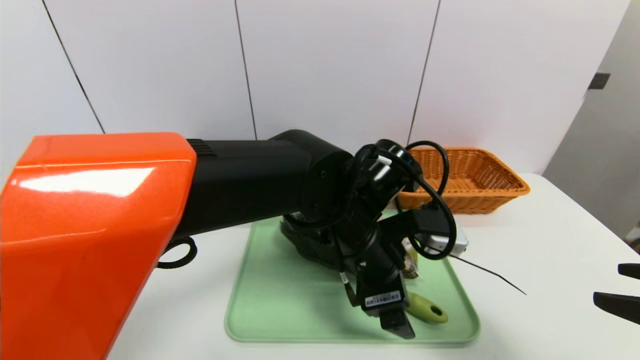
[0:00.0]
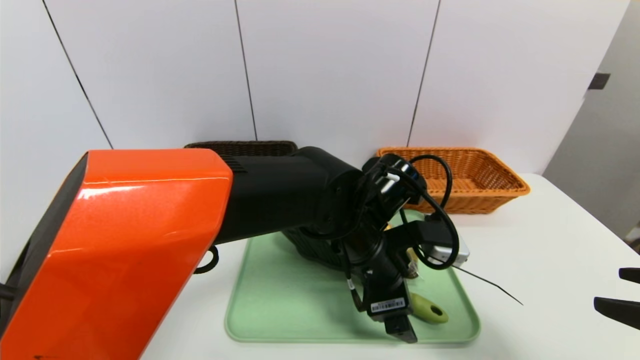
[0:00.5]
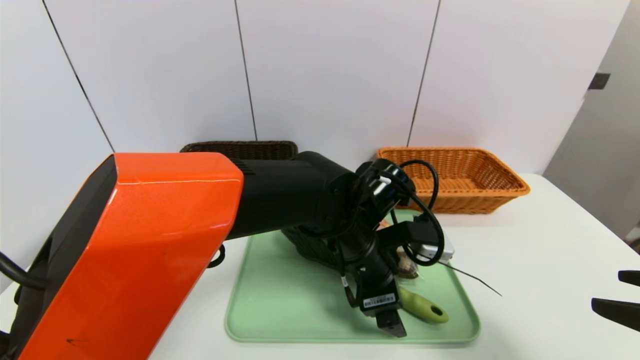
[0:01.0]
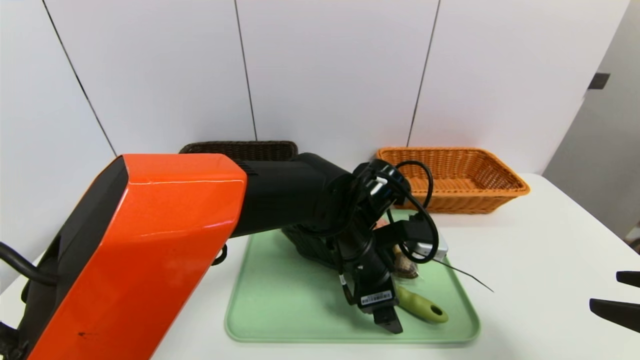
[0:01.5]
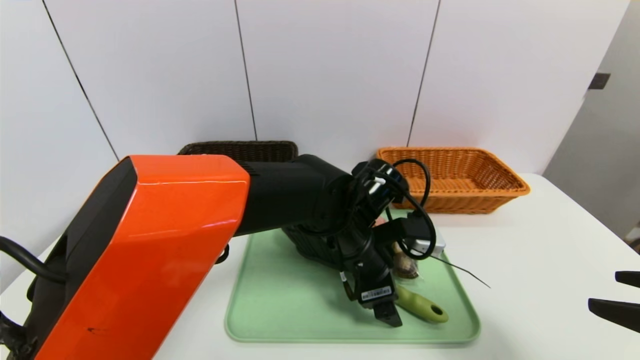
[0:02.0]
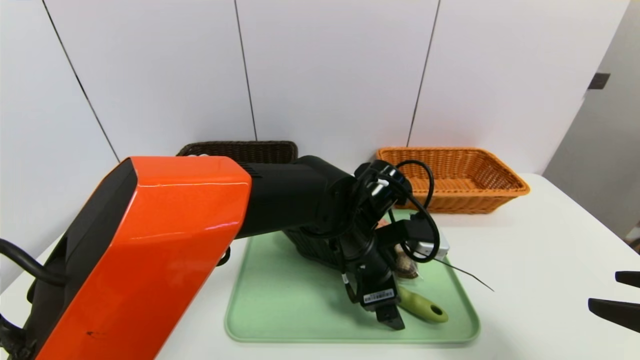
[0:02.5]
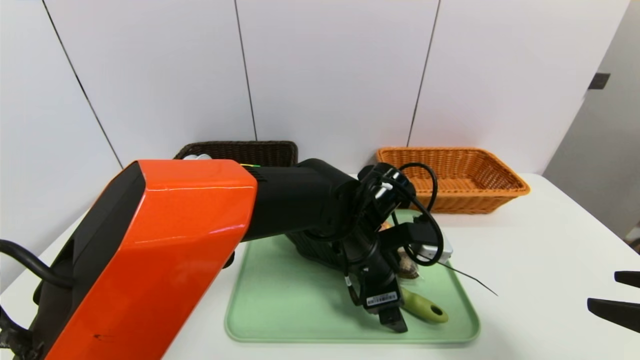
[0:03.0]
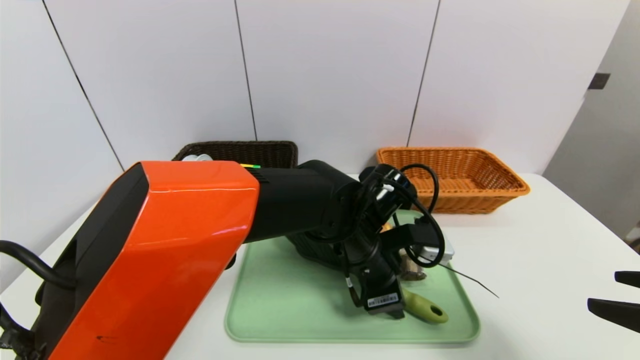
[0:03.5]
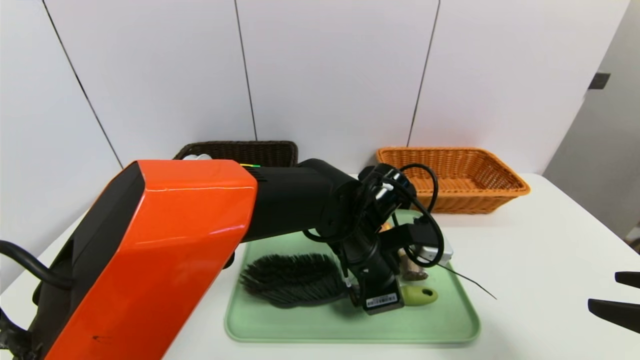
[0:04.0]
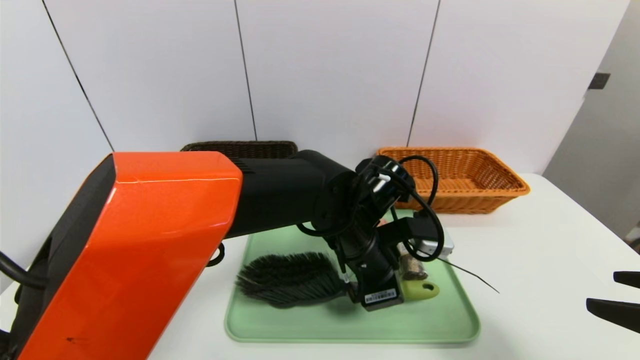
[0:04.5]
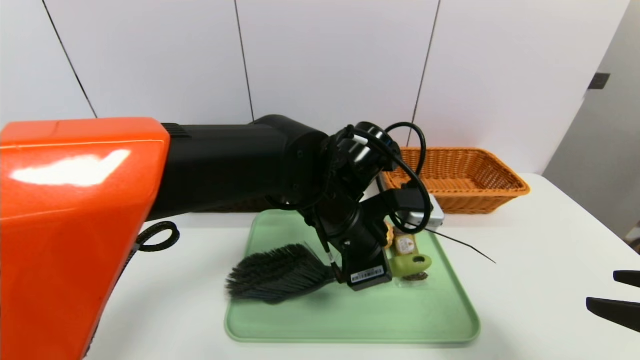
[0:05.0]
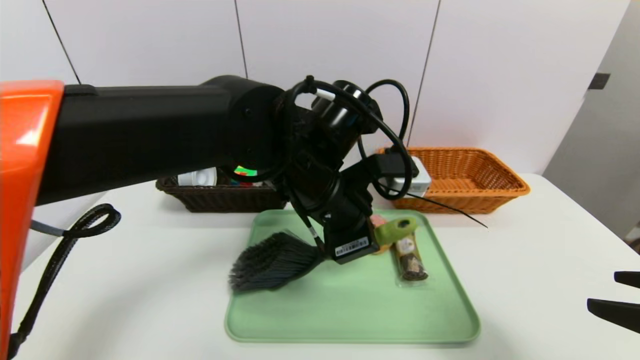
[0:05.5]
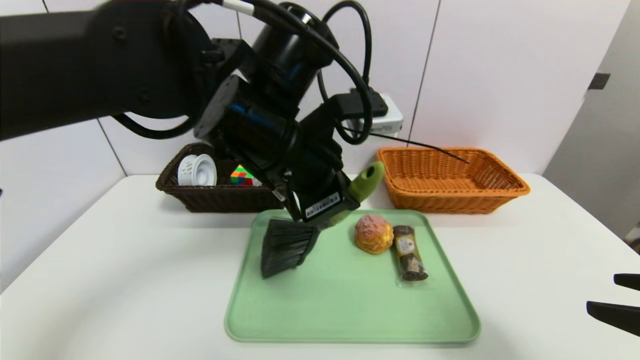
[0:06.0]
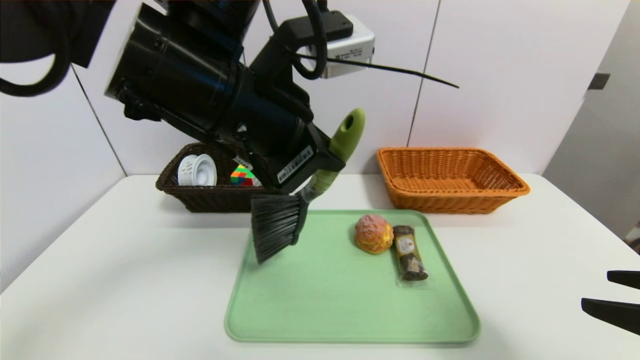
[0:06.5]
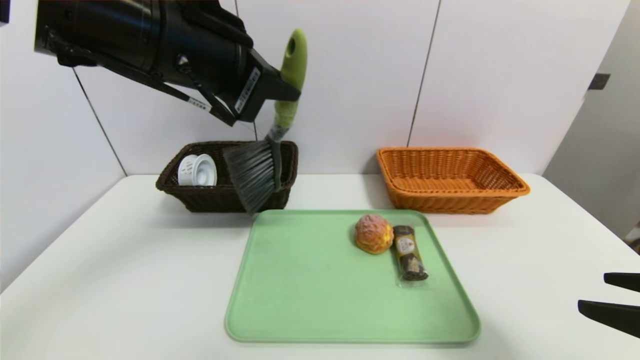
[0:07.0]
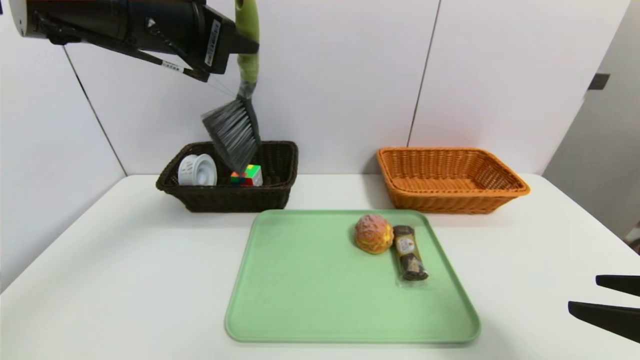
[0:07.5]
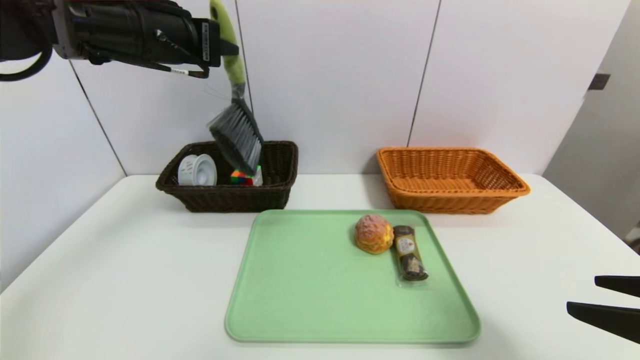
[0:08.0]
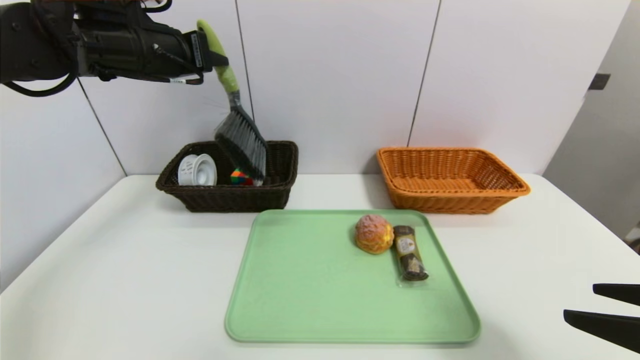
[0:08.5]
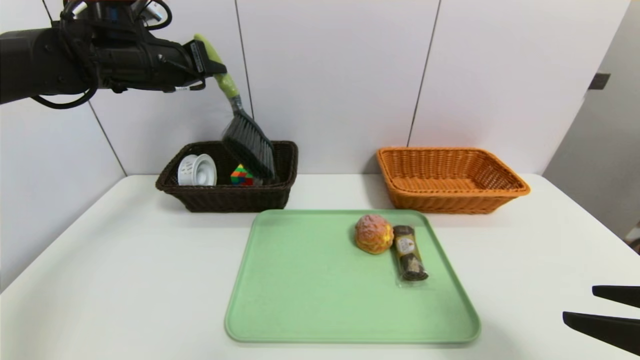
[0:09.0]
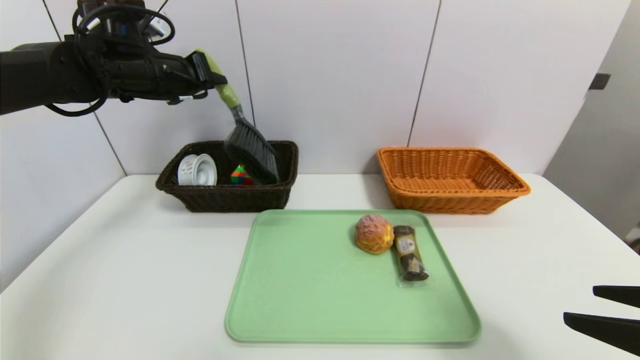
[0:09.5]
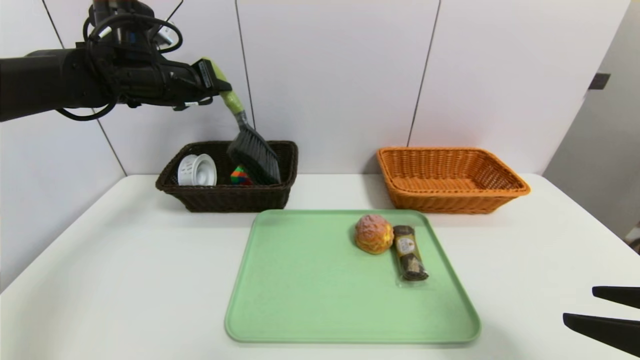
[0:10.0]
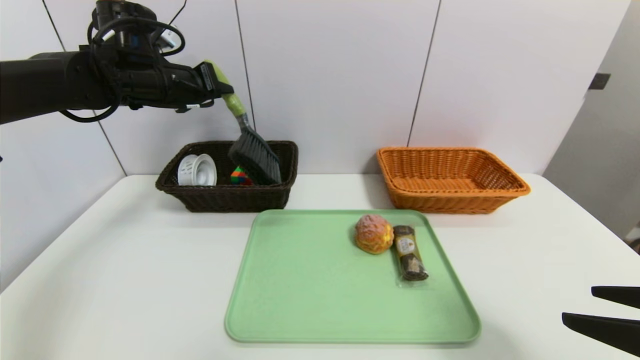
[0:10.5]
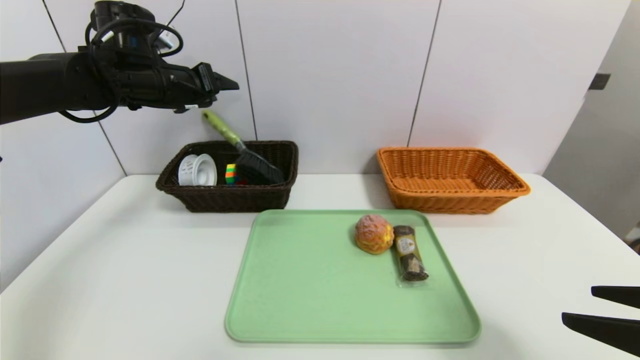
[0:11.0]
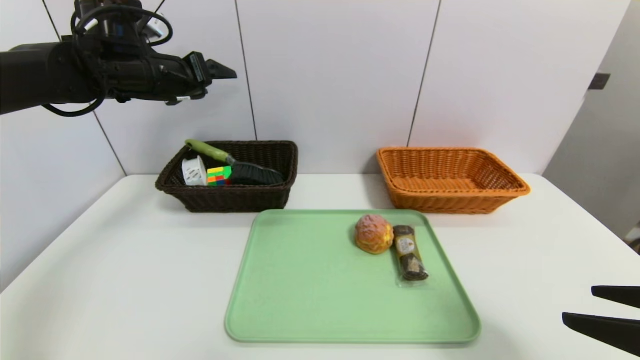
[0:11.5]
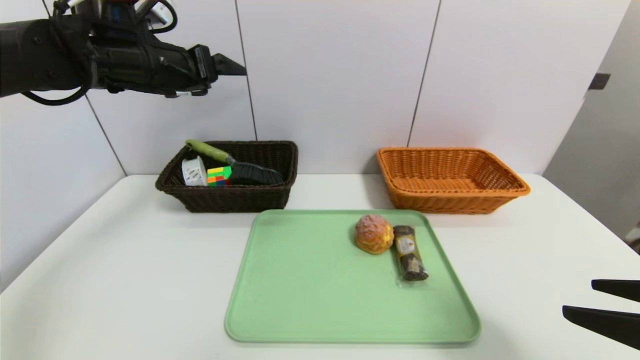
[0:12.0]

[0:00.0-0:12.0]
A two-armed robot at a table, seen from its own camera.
Task of the whole recording: place the food in the right basket with the right gripper, and place the non food items in the left basket with the left gripper.
Step, 0:00.0 to 0:11.5: Grasp the brush and put it in the left basket.
0:02.0 to 0:04.0: The left gripper closes its fingers.
0:04.0 to 0:06.0: The left gripper shifts roughly 20 cm upward and to the left.
0:06.0 to 0:08.0: The left gripper travels to the left, forward and upward by approximately 20 cm.
0:08.0 to 0:10.0: The left gripper shifts approximately 10 cm forward and downward.
0:10.0 to 0:12.0: The left gripper opens.

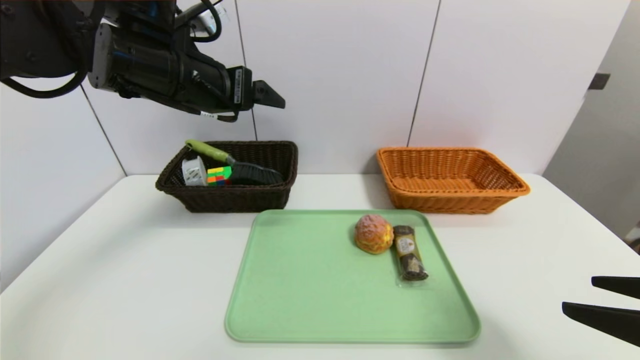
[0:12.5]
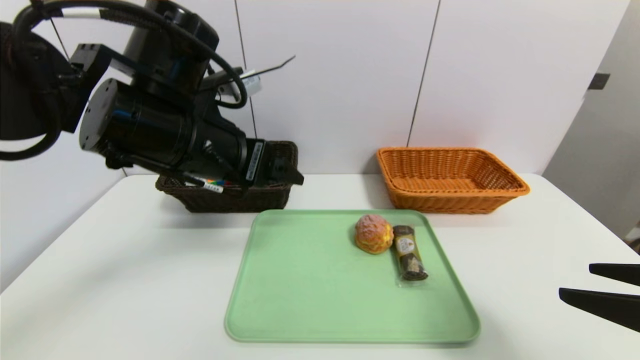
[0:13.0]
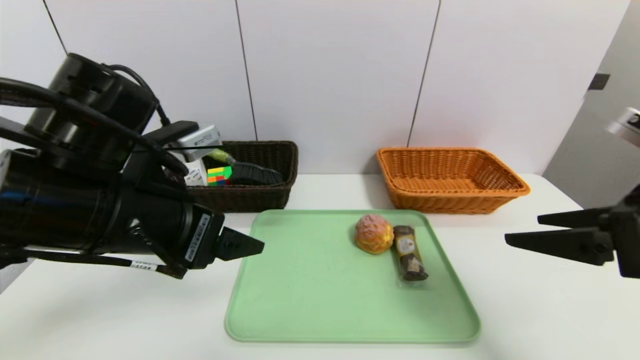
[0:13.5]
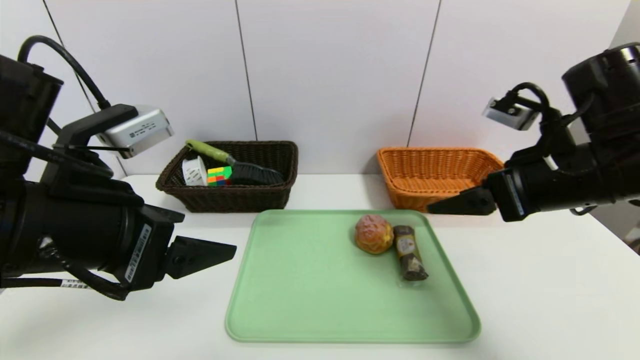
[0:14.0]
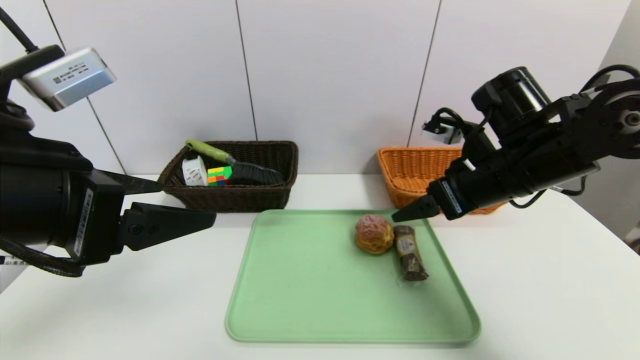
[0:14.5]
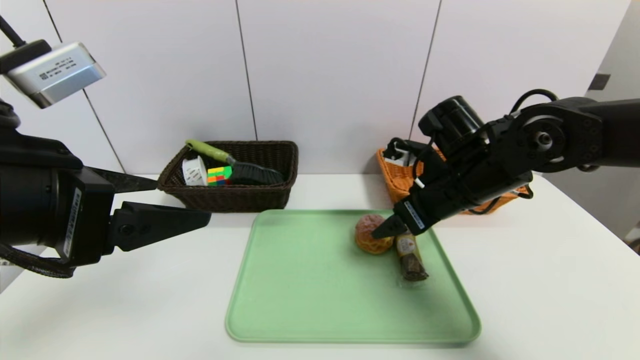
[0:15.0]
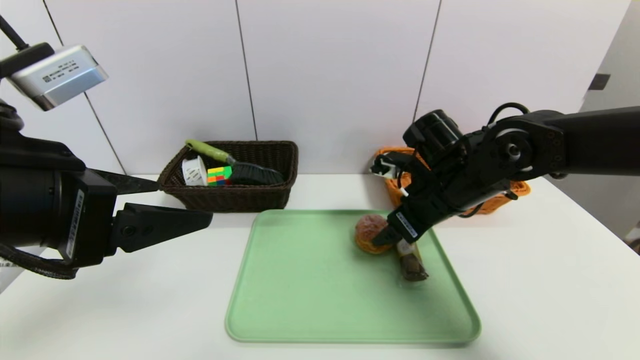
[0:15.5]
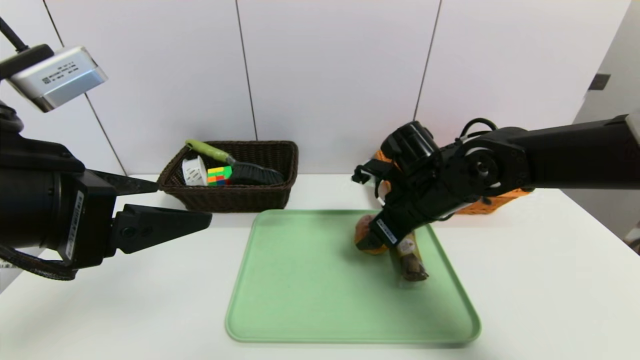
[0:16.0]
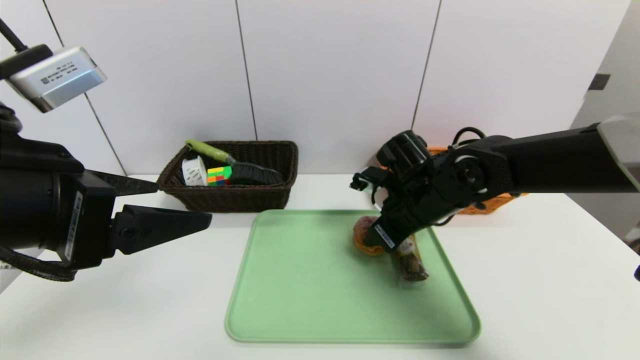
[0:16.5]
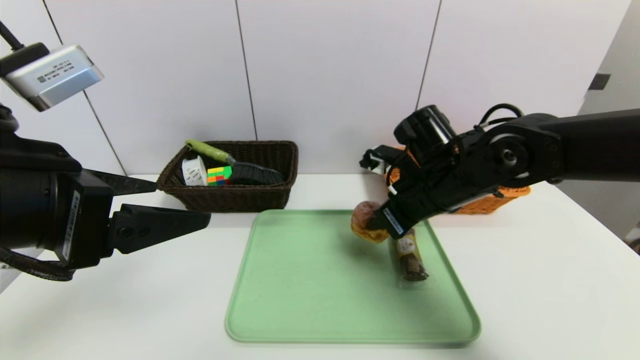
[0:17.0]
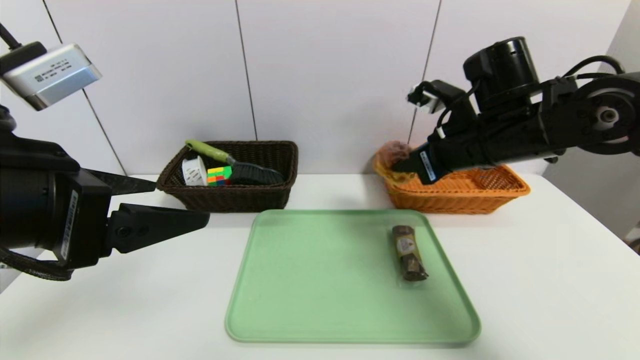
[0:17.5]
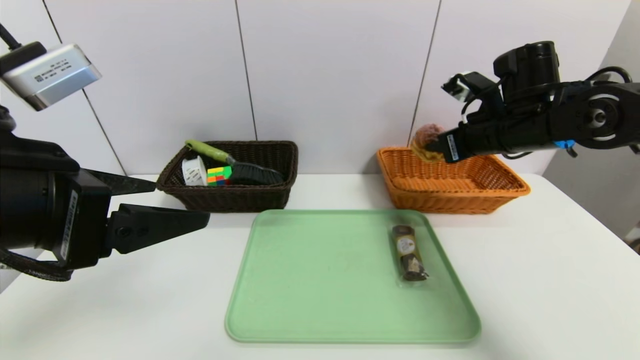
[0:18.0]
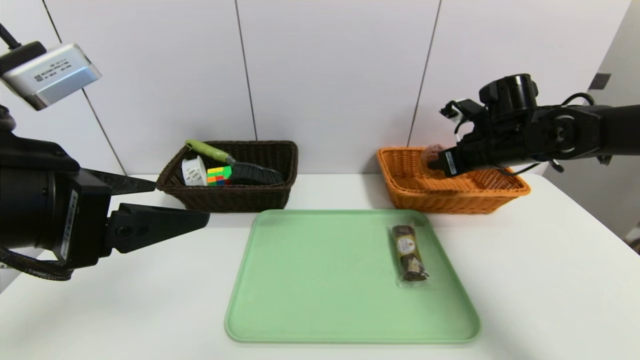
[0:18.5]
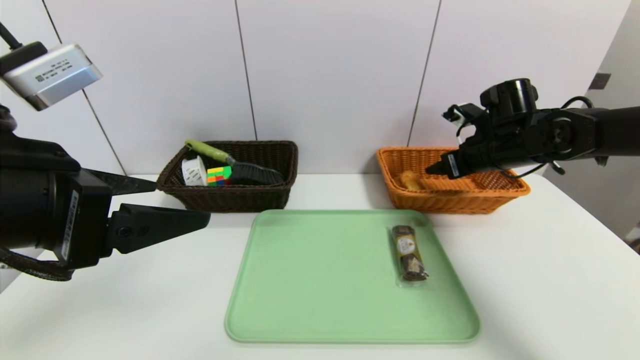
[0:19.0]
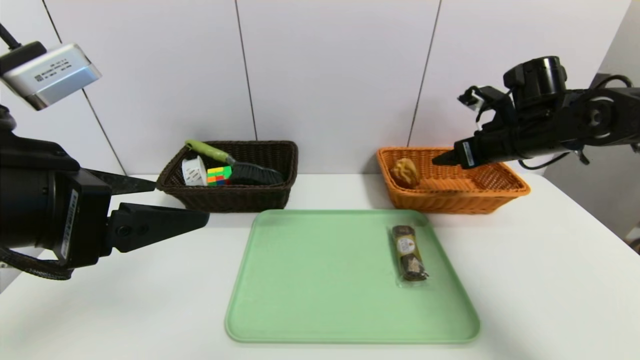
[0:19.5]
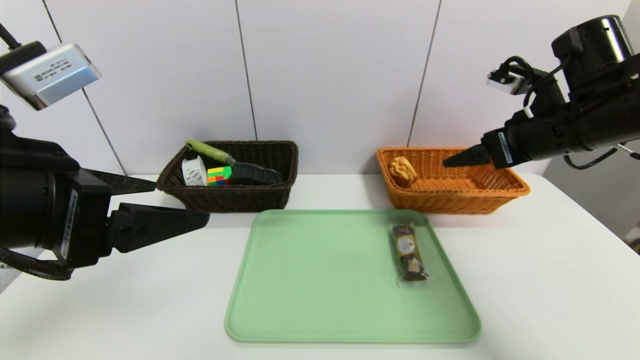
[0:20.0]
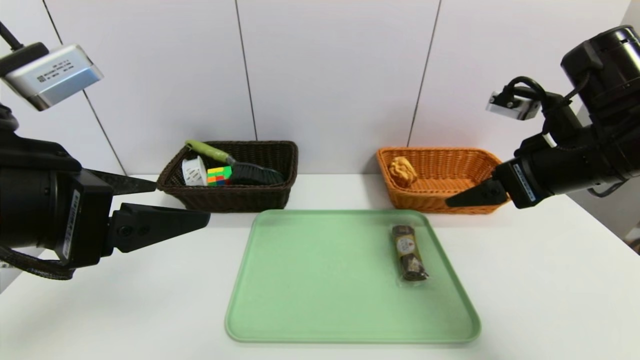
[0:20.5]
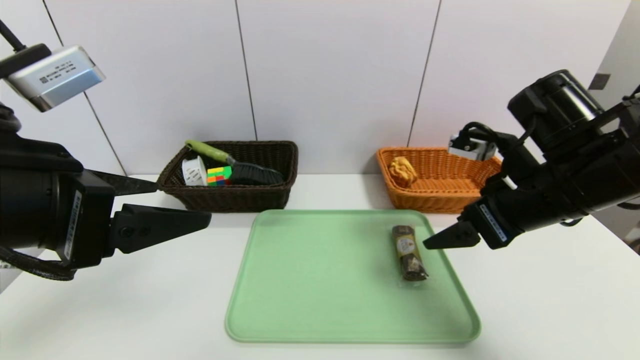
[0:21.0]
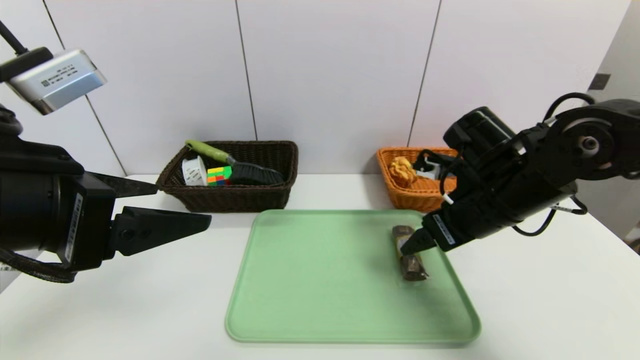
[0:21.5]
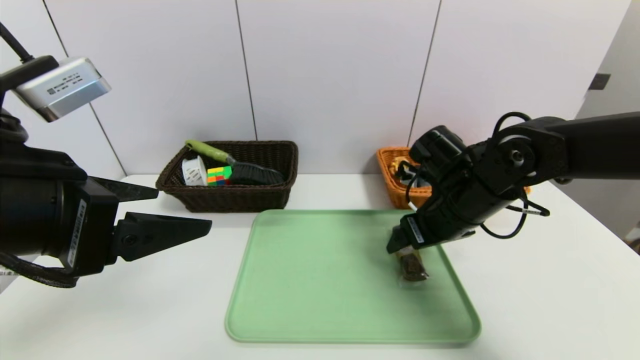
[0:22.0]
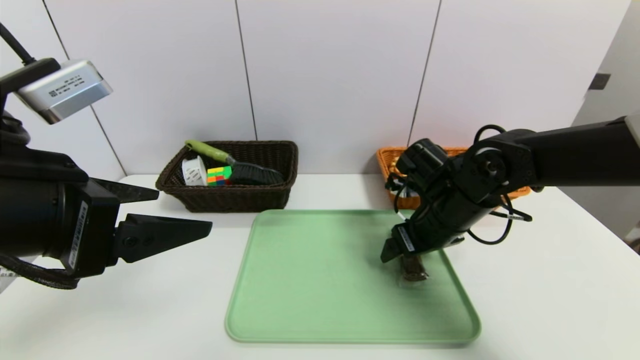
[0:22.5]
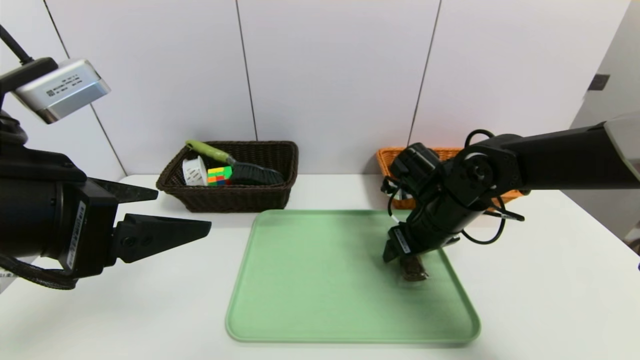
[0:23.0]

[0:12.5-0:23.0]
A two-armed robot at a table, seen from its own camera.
Task of the whole recording: place the food in the right basket with the right gripper, and place the non food items in the left basket with the left gripper.
Step, 0:12.5 to 0:19.0: Grasp the round bread and put it in the right basket.
0:12.5 to 0:14.5: The right gripper shifts approximately 25 cm forward and to the left. Meanwhile the left gripper moves backward, approximately 20 cm.
0:14.5 to 0:16.5: The right gripper shifts roughly 10 cm downward and to the left, and closes its fingers.
0:16.5 to 0:19.0: The right gripper shifts some 15 cm to the right and forward, and opens up.
0:19.0 to 0:21.0: The right gripper goes approximately 15 cm backward.
0:21.0 to 0:23.0: The right gripper moves downward, forward and to the left, about 15 cm.
